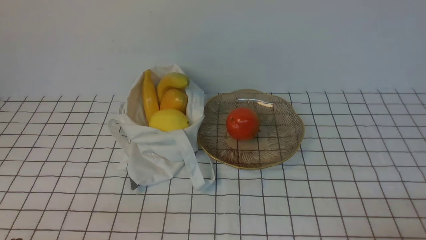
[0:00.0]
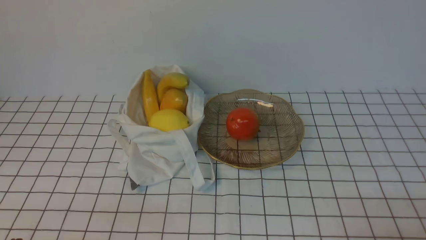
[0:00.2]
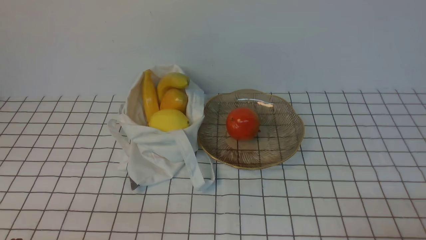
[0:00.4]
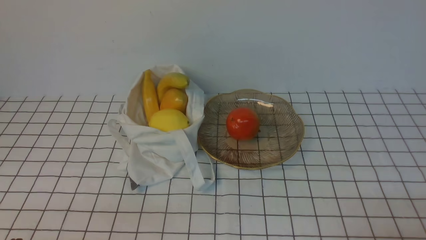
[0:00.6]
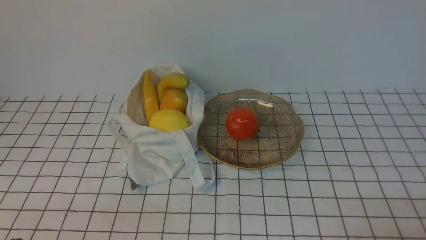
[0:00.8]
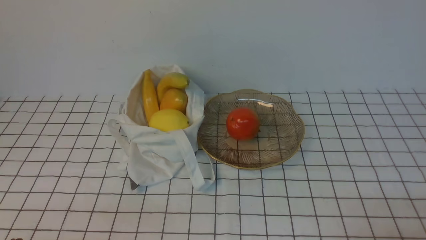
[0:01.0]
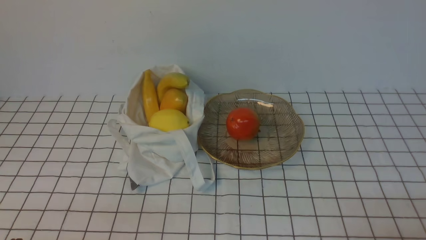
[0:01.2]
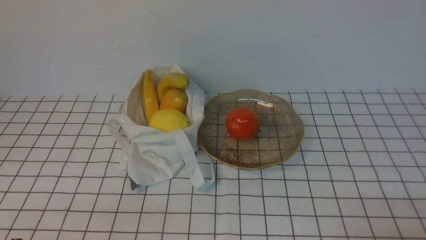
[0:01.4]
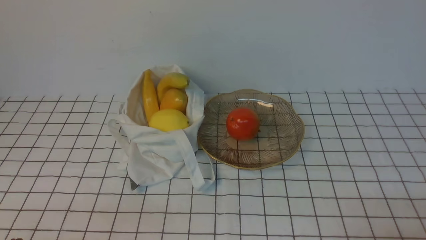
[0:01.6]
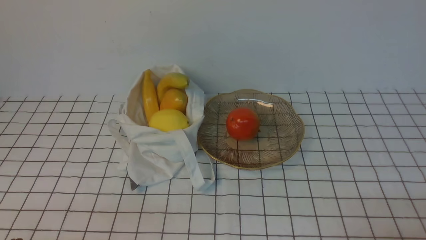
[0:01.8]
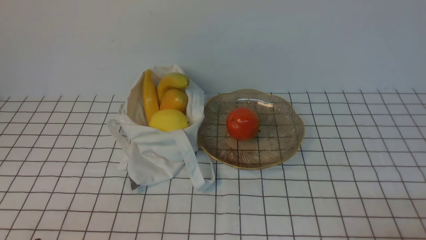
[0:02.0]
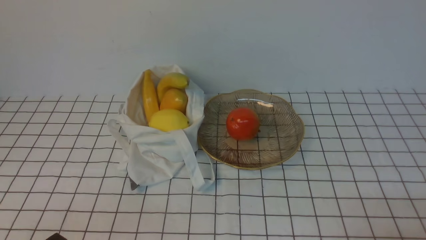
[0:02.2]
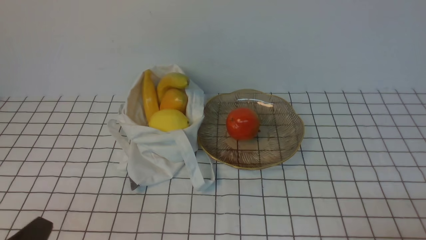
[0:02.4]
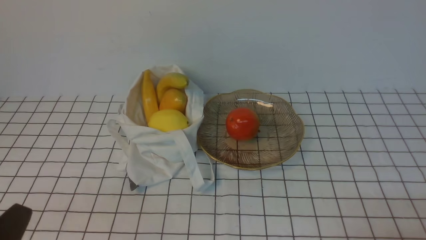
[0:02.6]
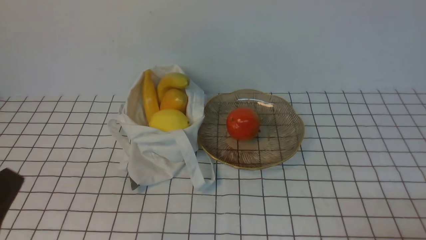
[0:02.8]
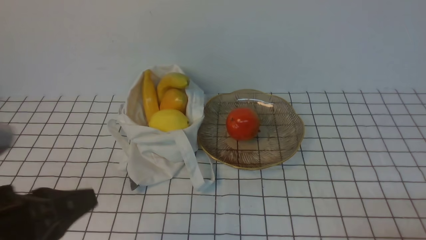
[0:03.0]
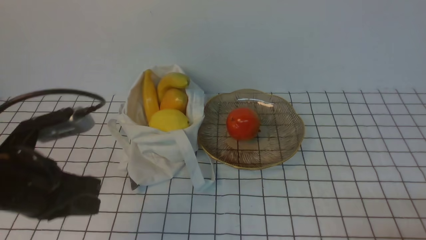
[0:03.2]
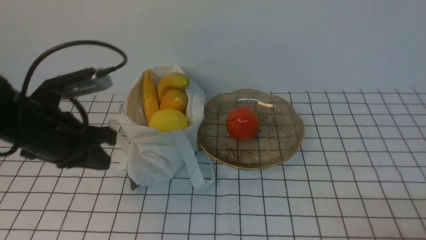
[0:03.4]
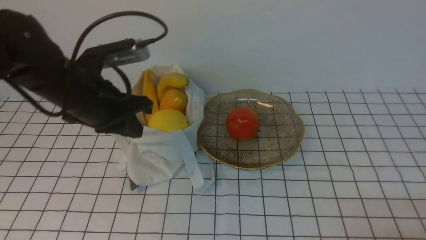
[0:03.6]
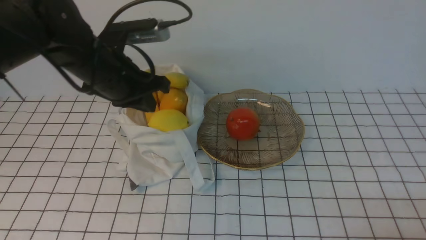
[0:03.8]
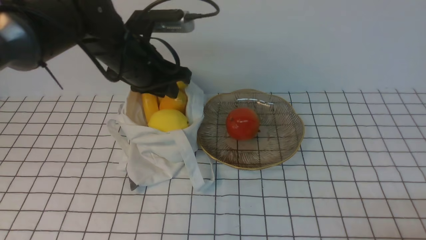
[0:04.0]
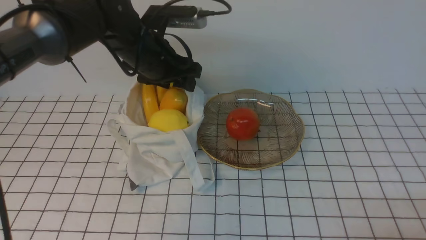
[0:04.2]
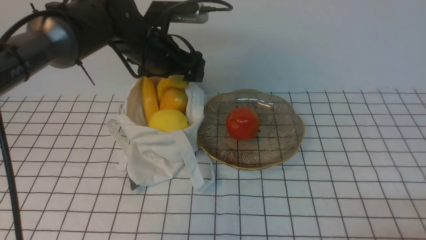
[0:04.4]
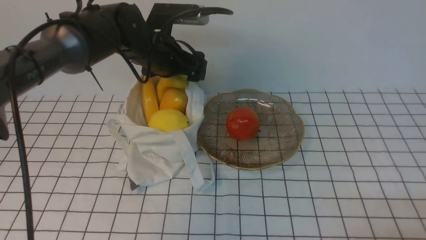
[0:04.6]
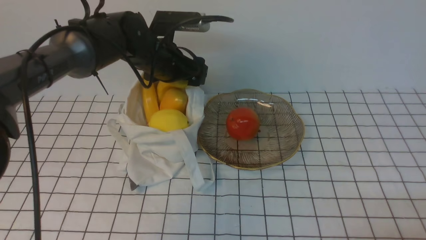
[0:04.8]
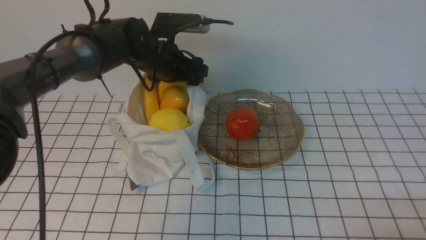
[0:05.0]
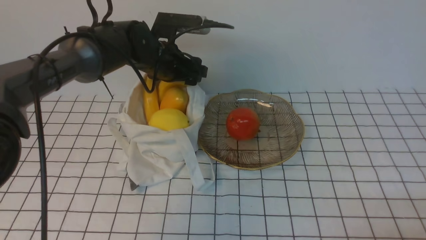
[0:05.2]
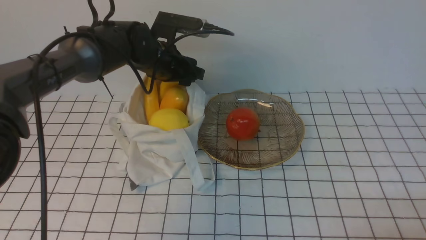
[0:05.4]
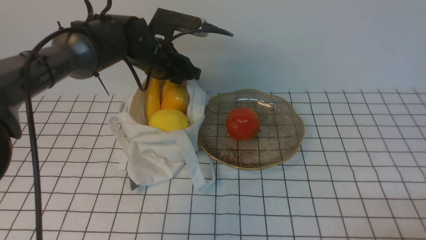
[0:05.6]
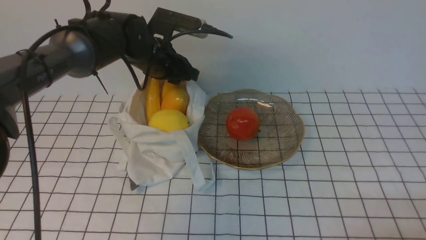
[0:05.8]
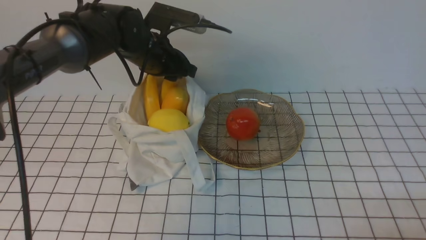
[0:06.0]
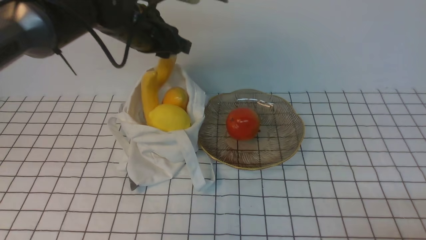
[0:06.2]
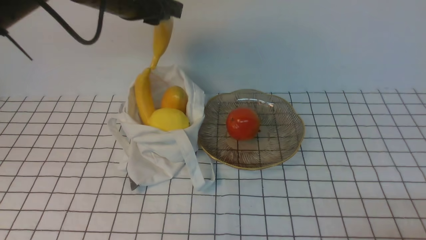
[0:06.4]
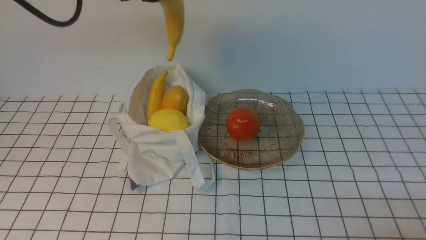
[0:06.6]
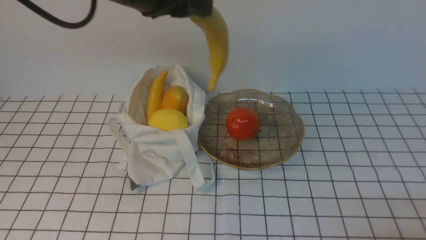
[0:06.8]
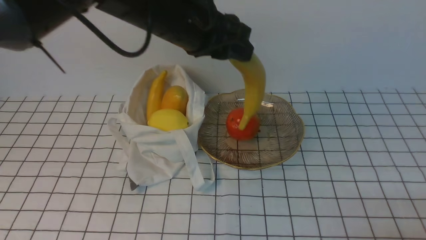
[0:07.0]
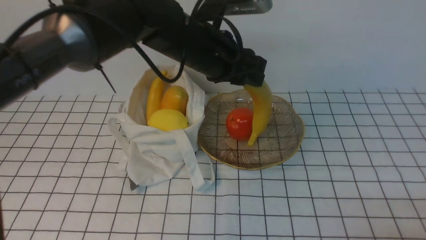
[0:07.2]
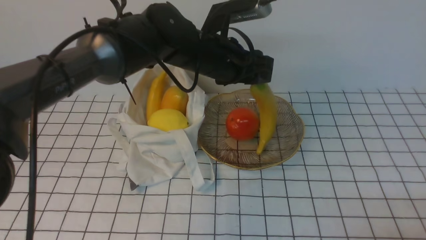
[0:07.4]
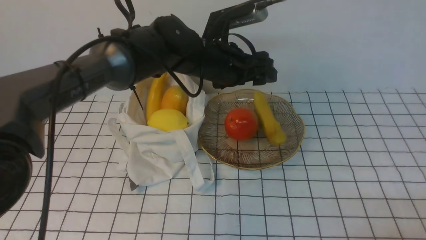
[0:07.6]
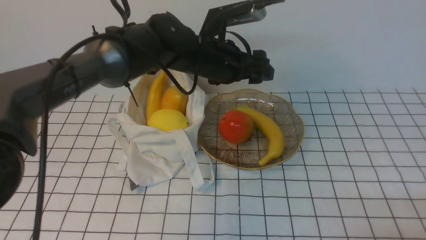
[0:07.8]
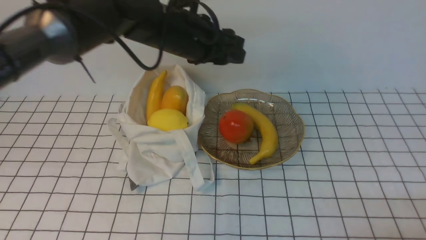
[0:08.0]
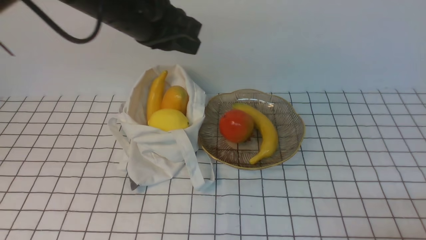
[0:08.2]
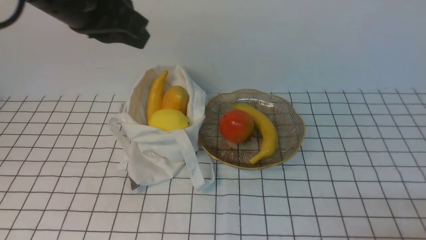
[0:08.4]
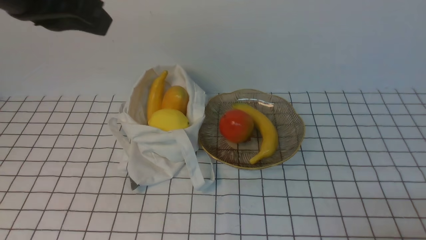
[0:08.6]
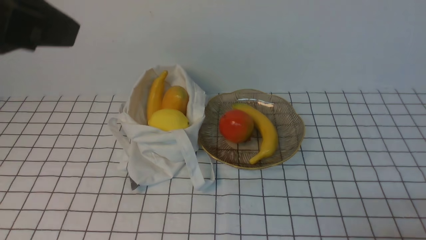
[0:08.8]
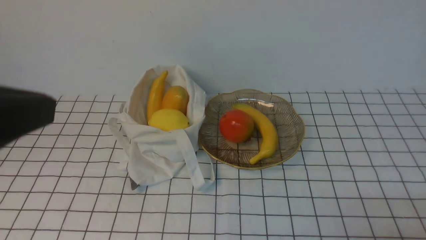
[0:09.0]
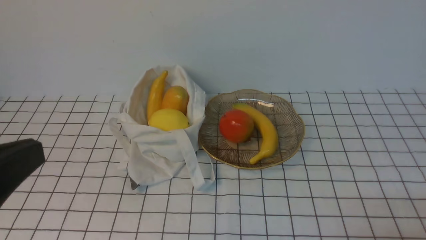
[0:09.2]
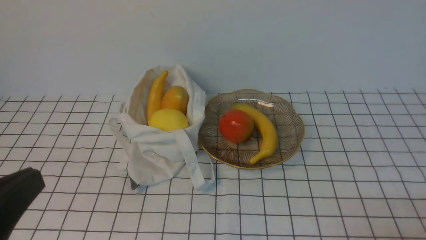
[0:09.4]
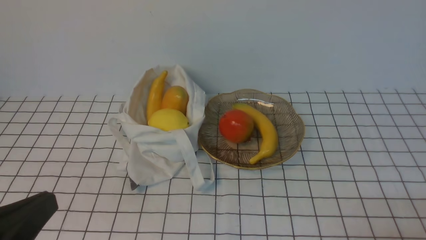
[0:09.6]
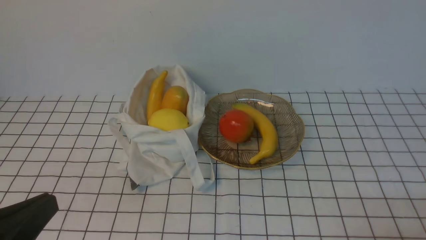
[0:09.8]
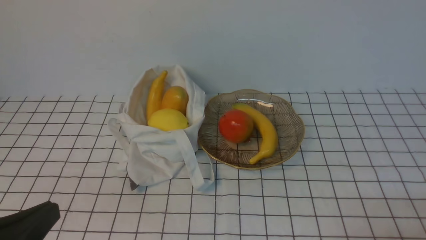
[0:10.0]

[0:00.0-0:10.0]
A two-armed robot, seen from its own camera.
Step, 0:00.0 to 0:06.0: use the left arm to grab a banana from the bag.
Step, 0:06.2 to 0:07.6: use the left arm to put the banana into the empty plate on the right.
0:01.4 to 0:02.8: The left gripper heads upward, covering approximately 5 cm.
0:02.8 to 0:04.2: The left gripper heads forward, covering about 35 cm, and opens.
0:04.2 to 0:05.8: The left gripper heads forward, covering some 5 cm, and opens, then closes again.
0:05.8 to 0:07.2: The left gripper travels upward, backward and to the right by about 15 cm.
0:07.2 to 0:08.6: The left gripper shifts some 20 cm to the left, upward and backward, and closes up.
0:08.6 to 0:10.0: The left gripper moves backward and downward, roughly 25 cm.

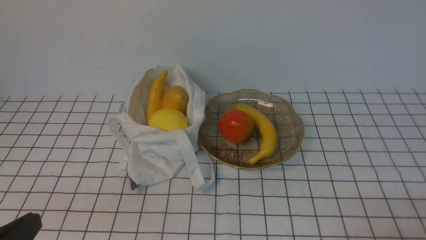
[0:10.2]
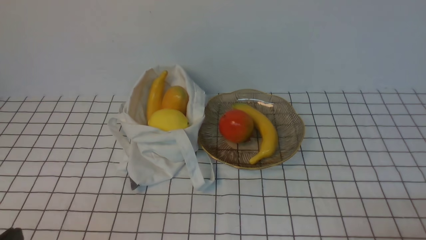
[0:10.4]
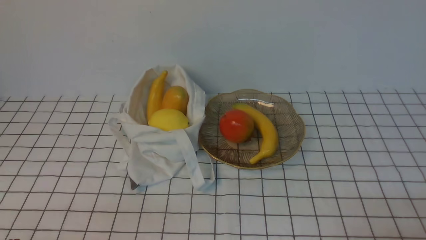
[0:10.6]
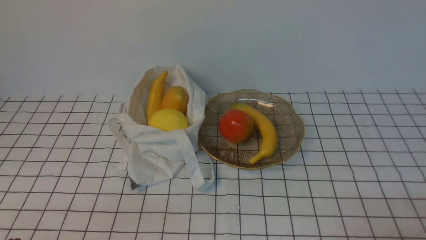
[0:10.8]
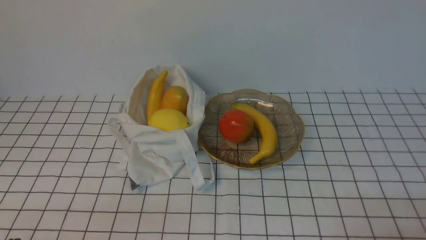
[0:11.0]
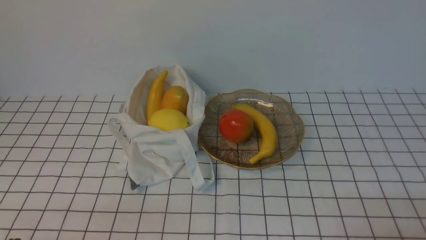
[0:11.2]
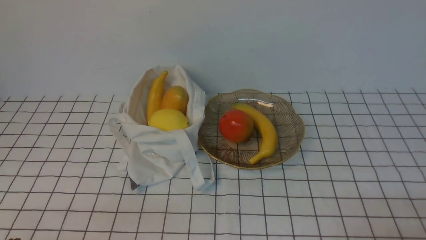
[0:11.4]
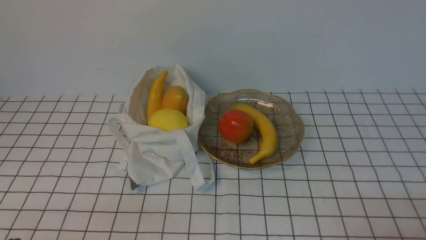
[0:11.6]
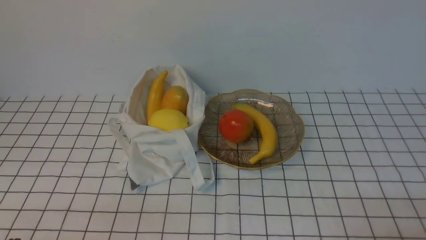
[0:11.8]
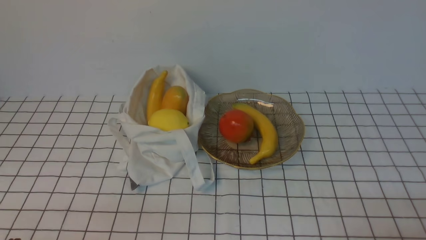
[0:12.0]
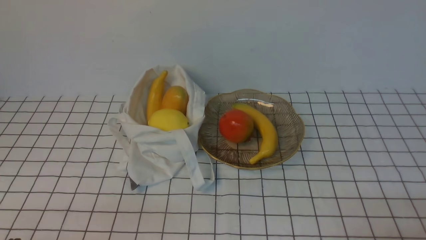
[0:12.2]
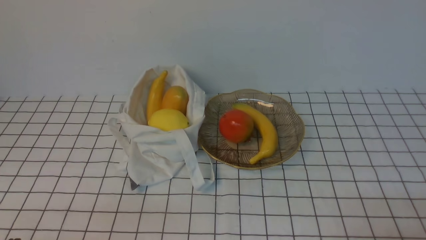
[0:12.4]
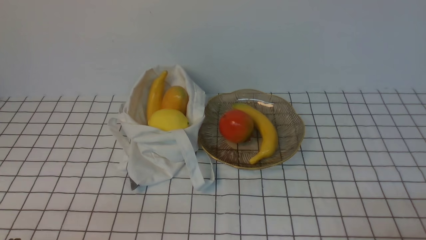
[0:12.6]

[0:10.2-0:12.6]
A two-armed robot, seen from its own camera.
0:10.2 to 0:11.4: The left gripper heads downward, covering roughly 10 cm.
0:11.4 to 0:12.6: Both grippers stay about where they are.

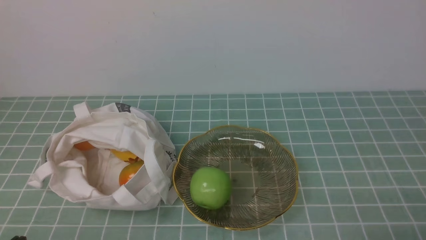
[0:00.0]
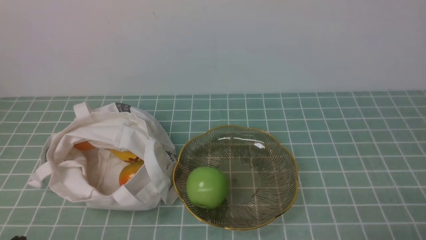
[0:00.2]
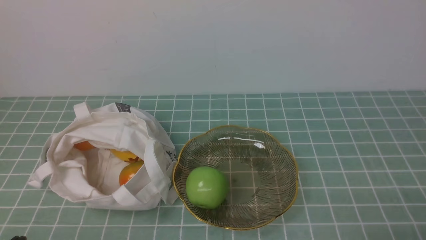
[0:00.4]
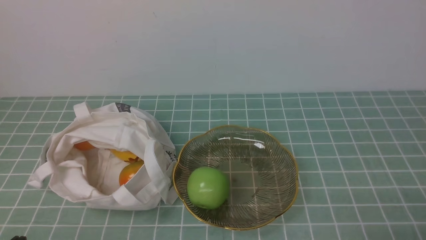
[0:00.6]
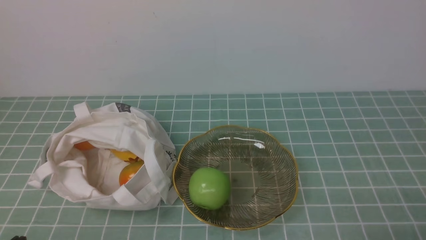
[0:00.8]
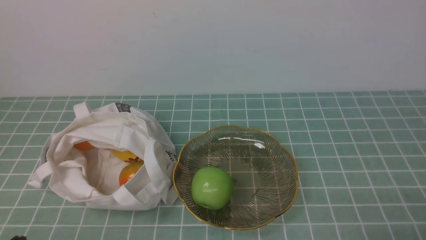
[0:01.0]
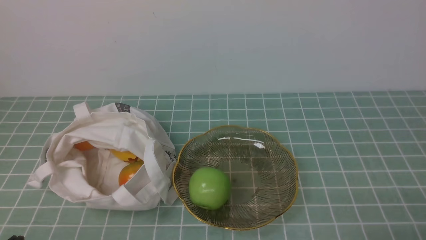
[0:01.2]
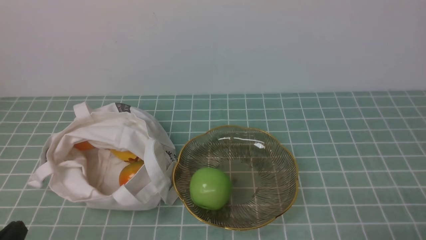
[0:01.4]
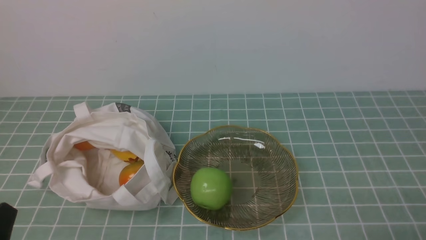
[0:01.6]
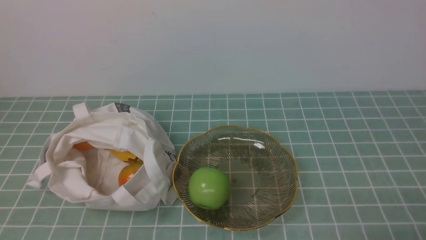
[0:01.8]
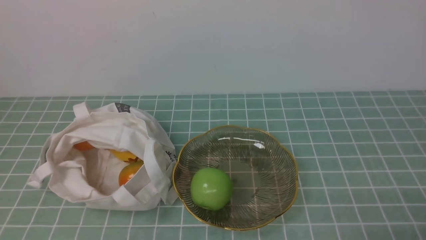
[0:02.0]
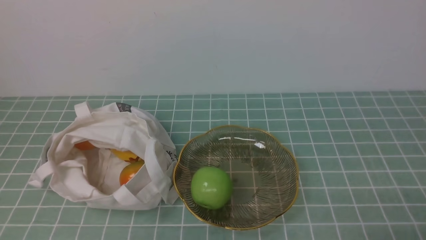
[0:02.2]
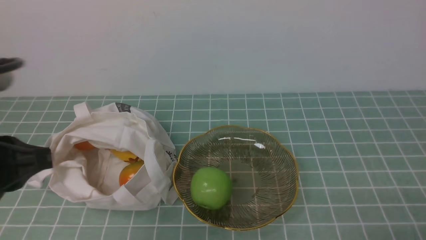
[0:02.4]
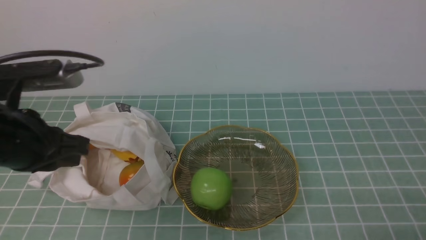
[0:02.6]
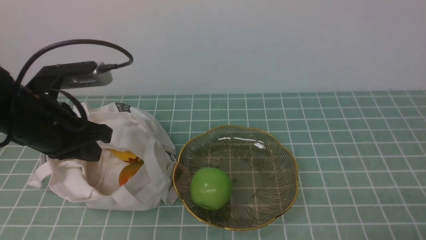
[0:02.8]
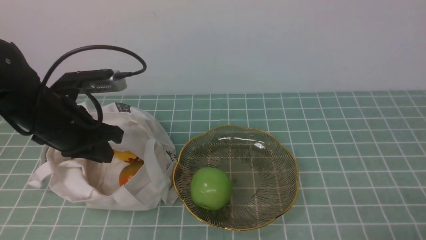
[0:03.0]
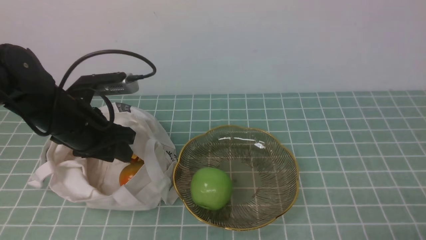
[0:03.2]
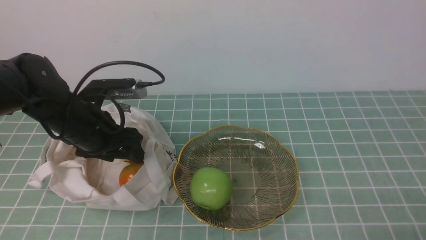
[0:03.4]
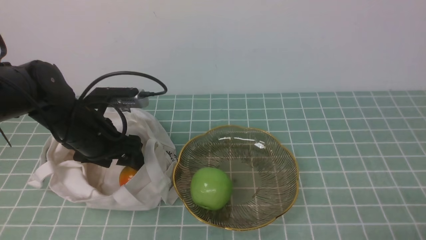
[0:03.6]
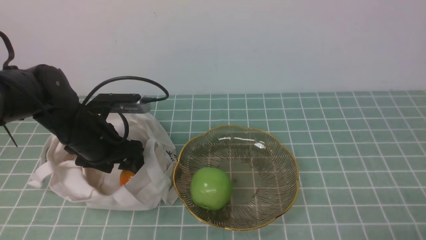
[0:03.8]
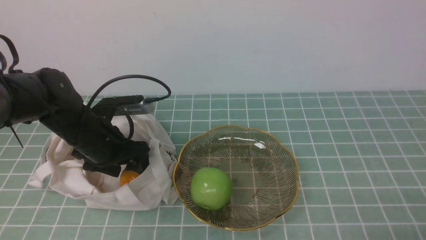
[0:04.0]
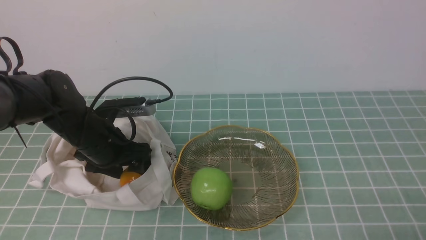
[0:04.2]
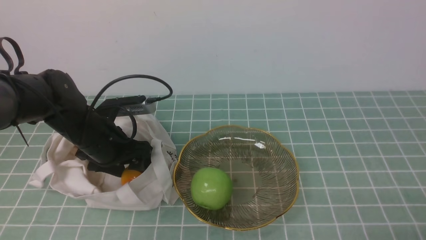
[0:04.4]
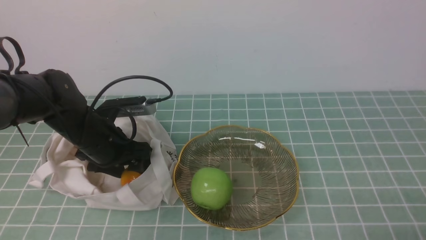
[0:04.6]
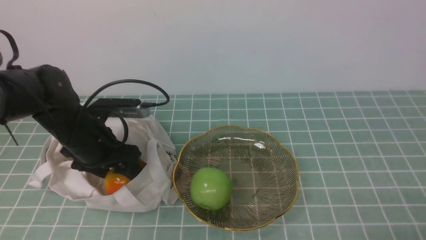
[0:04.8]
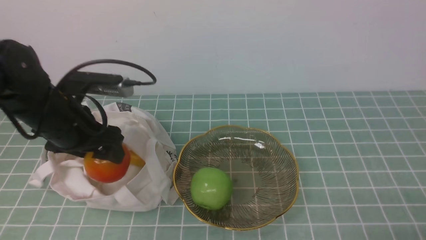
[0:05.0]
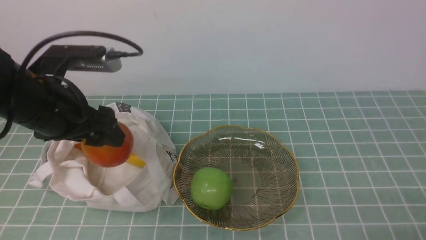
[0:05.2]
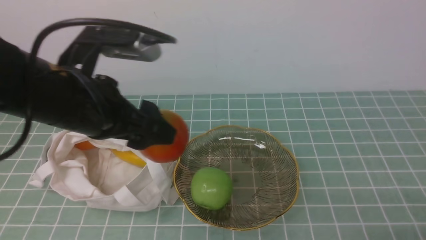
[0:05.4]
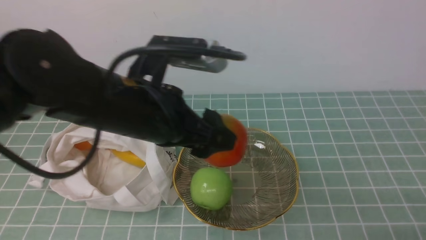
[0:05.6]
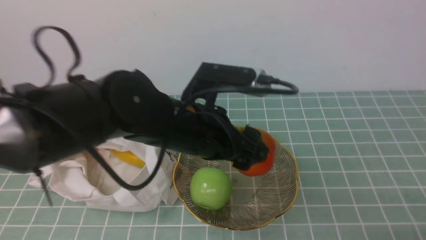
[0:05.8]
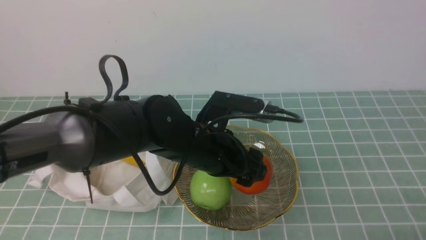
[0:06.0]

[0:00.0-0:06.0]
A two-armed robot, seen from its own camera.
Step, 0:00.0 to 0:04.6: use the left arm to grab a pomegranate from the bag.
0:01.6 to 0:03.0: The left gripper shifts approximately 25 cm forward.
0:03.0 to 0:04.4: The left gripper heads downward, covering some 10 cm, and opens its fingers.
0:04.4 to 0:06.0: The left gripper shifts about 15 cm to the right.
